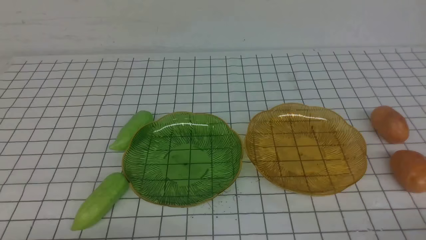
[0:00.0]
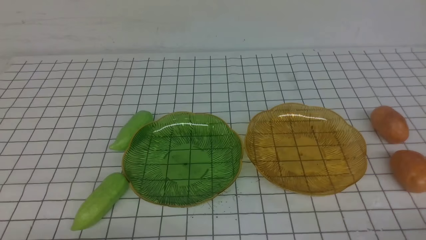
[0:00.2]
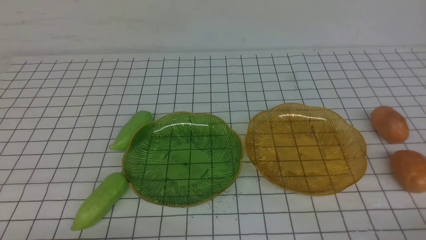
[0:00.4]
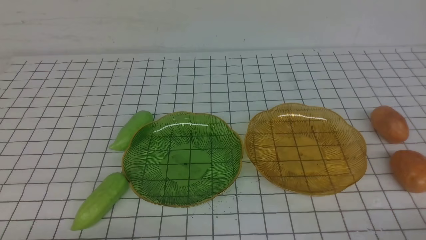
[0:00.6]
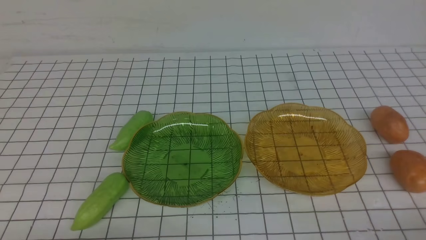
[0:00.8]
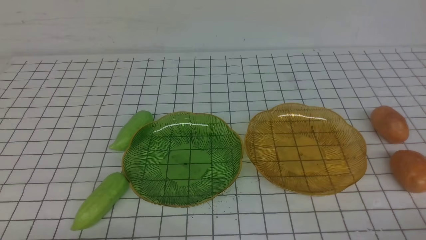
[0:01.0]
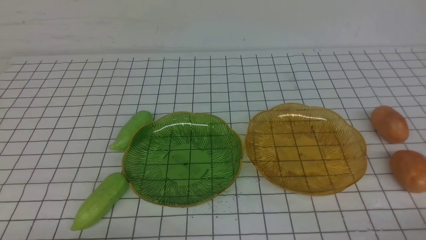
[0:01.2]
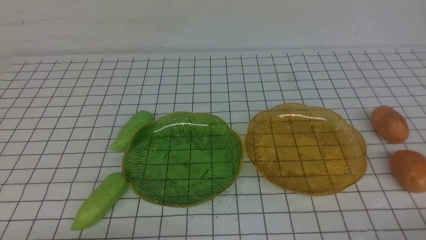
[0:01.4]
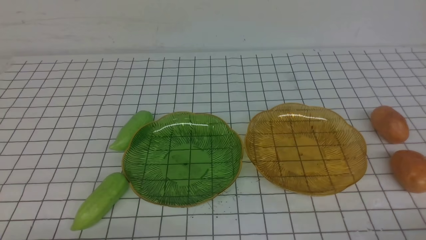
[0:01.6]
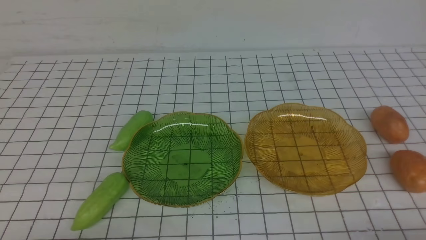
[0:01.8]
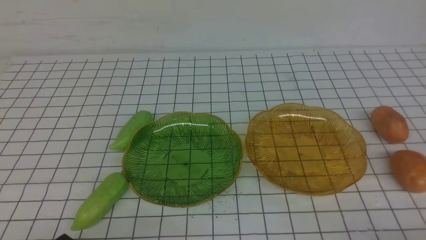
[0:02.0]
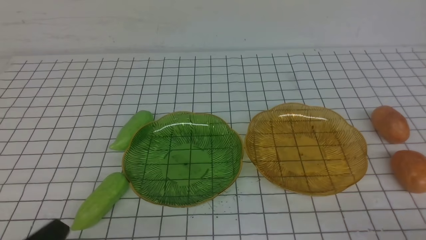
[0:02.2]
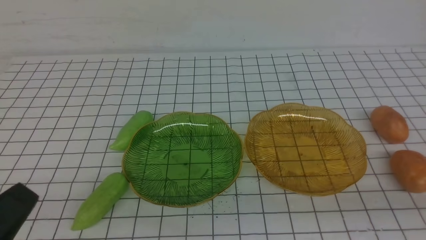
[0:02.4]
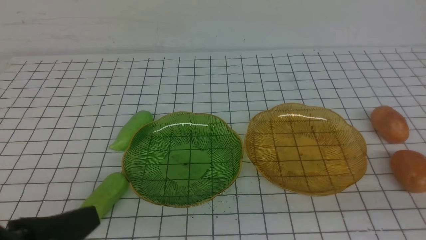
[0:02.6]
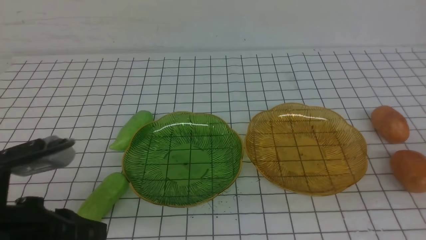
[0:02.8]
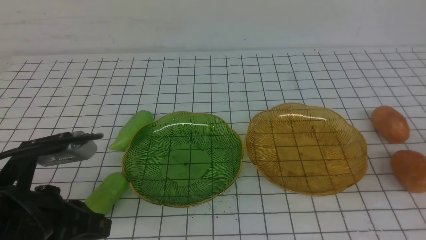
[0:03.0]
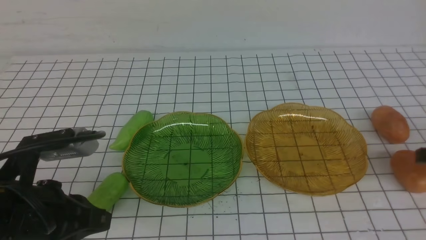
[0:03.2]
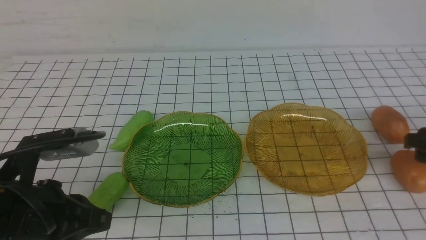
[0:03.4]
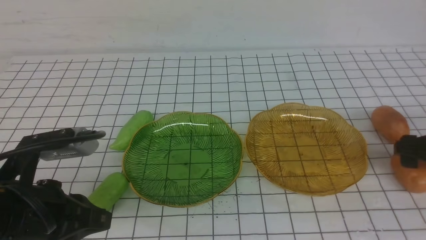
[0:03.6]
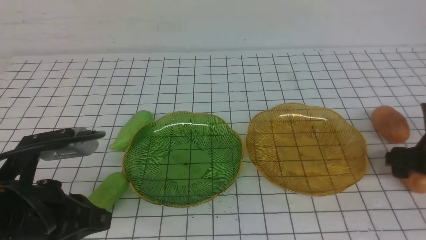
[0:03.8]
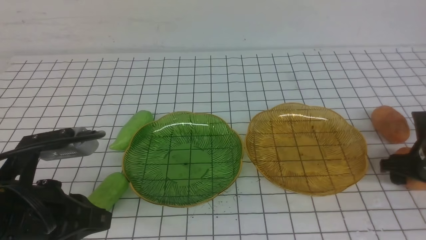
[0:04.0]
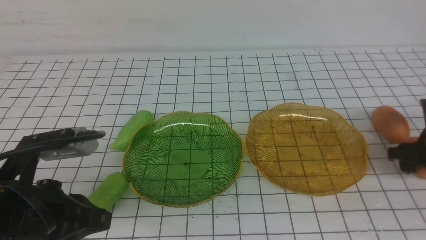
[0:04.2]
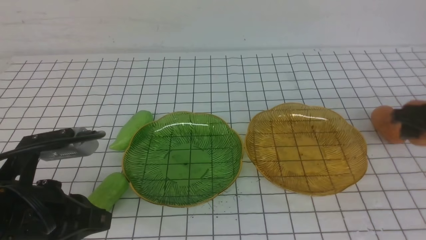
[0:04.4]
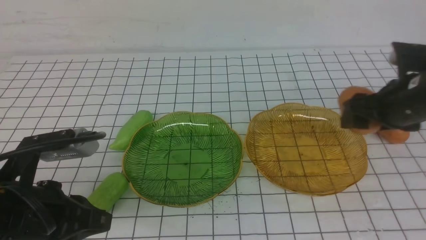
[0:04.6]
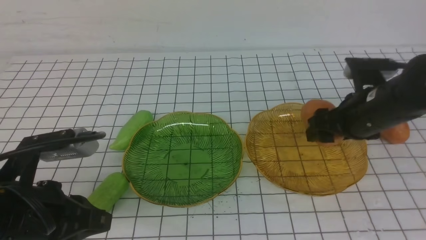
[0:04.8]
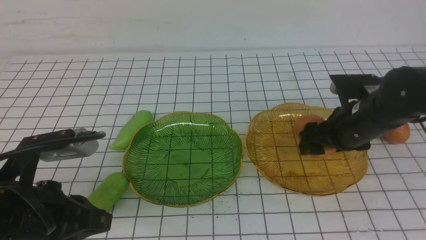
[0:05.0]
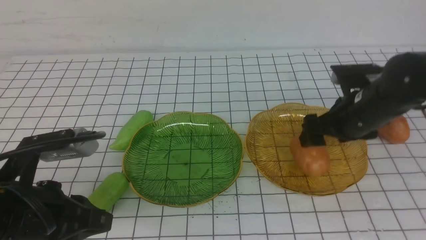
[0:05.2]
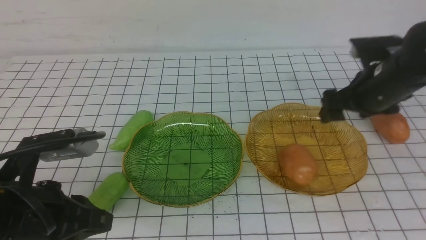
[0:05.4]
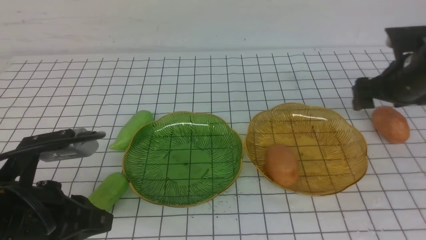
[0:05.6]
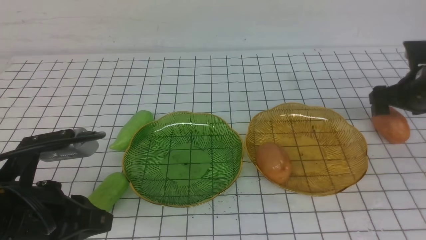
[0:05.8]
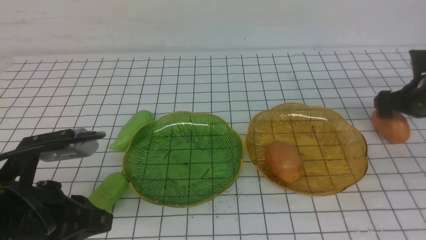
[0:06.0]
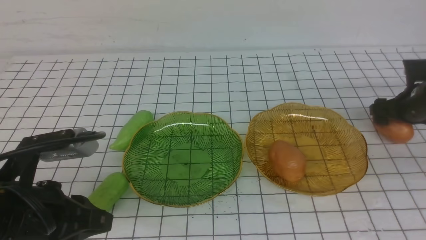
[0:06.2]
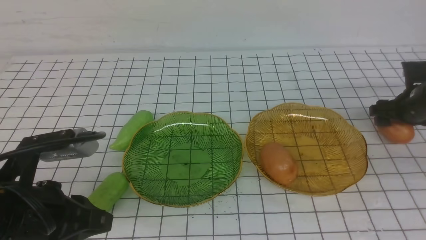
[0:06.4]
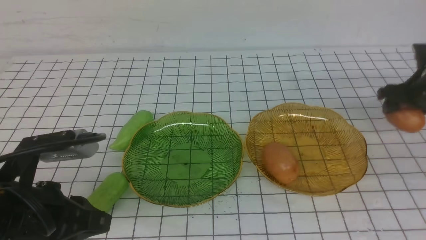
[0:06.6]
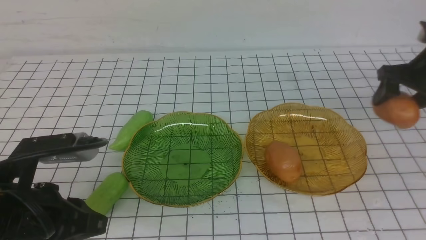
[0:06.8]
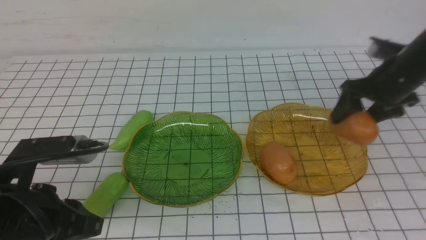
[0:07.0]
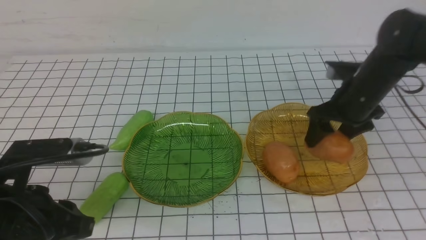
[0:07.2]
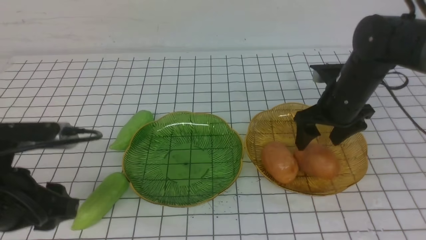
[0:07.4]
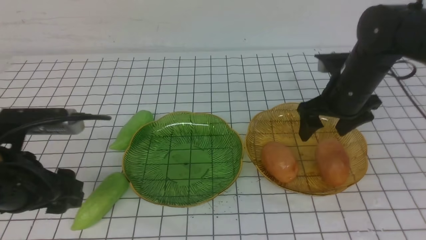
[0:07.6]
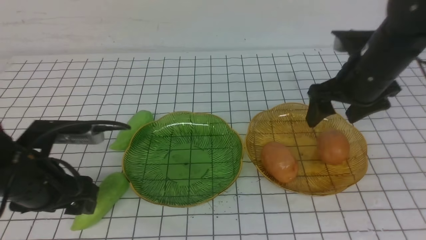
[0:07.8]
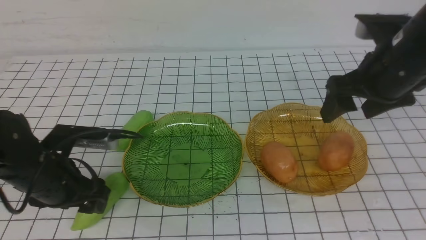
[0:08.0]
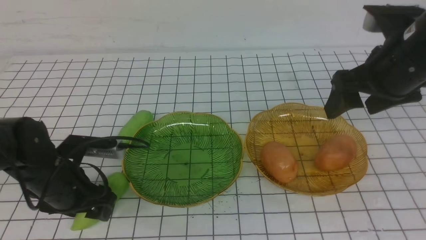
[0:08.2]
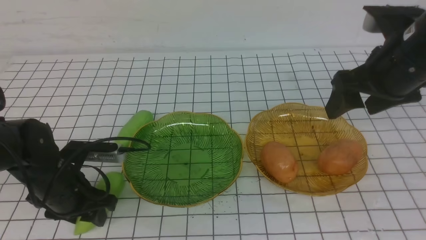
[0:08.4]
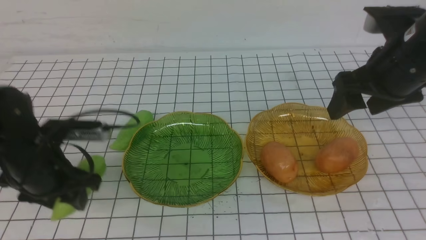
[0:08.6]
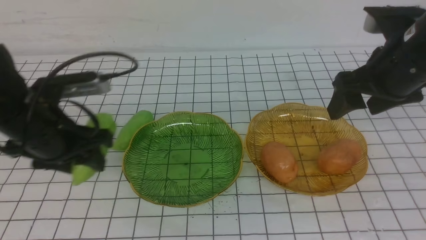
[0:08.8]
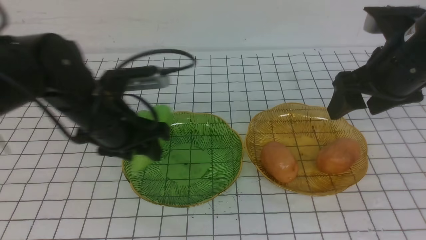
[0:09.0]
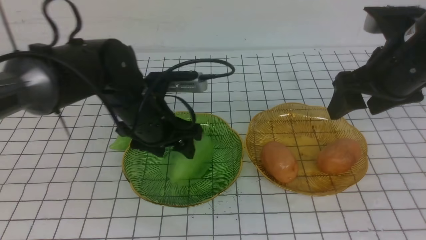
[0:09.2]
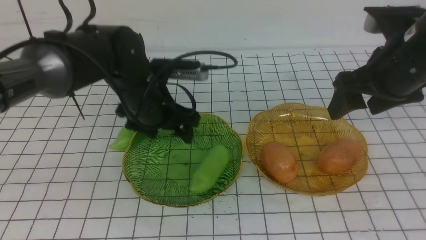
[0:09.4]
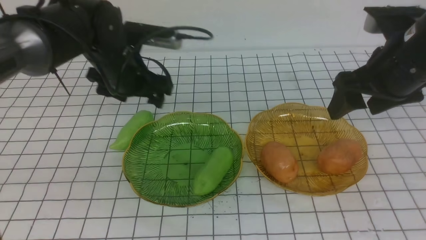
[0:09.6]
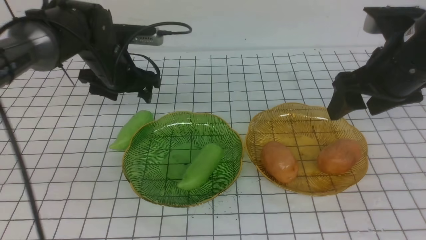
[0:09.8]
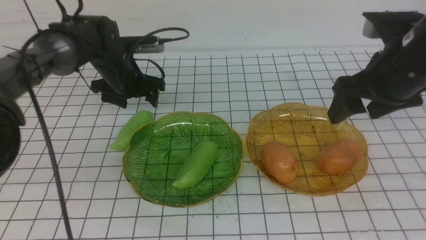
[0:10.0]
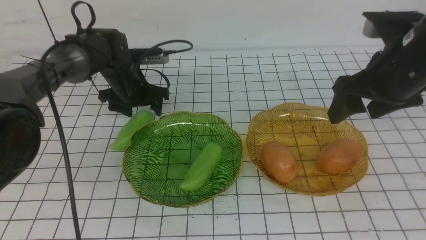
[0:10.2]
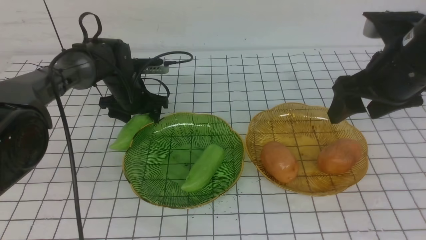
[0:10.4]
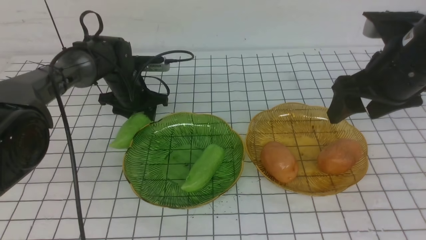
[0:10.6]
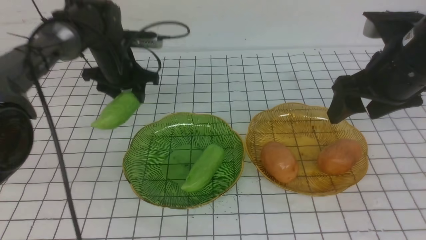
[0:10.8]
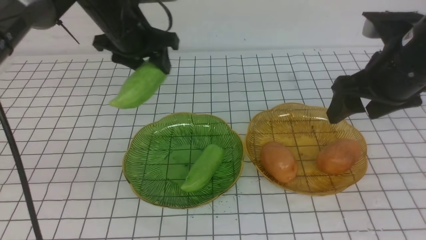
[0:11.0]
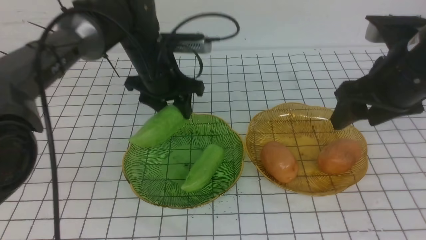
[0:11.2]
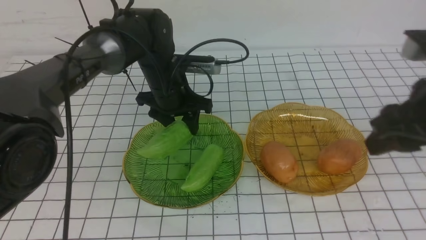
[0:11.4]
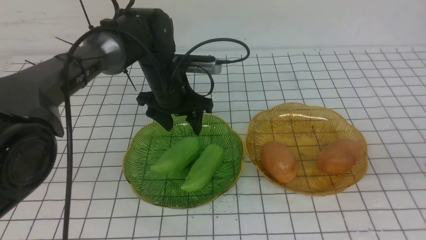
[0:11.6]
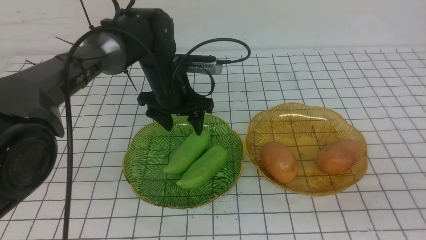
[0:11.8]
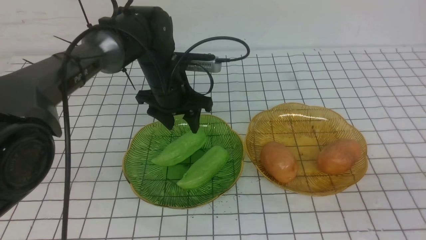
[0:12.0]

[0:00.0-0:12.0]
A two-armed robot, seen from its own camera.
Step, 0:00.0 to 0:07.4: Grab a potato with your right arm and put it on the right plate.
Step, 0:07.6 to 0:11.6: use the left arm to grab a chayote and put it into the left plate.
0:01.6 to 0:03.0: The left gripper goes approximately 15 cm upward and forward; the right gripper heads forward and upward, covering some 15 cm.
0:03.0 to 0:04.4: The right gripper moves forward, roughly 10 cm, and opens its fingers.
0:04.4 to 0:06.0: The right gripper is displaced forward, downward and to the right by roughly 15 cm.
0:06.0 to 0:07.6: The left gripper changes place by some 5 cm, and opens; the right gripper shifts some 15 cm to the left and upward.
0:07.6 to 0:09.0: The right gripper heads upward and backward, covering about 10 cm; the left gripper shifts approximately 15 cm forward and to the right.
0:09.0 to 0:10.4: The left gripper moves forward and downward, about 20 cm.
0:10.4 to 0:12.0: The right gripper heads backward, covering some 25 cm, and closes up. The left gripper moves to the right, upward and backward, approximately 15 cm.

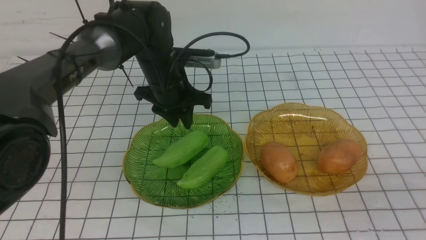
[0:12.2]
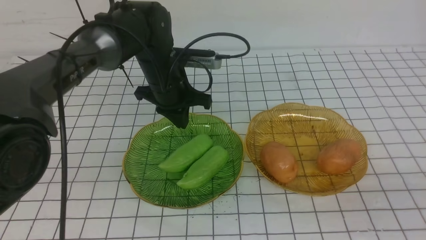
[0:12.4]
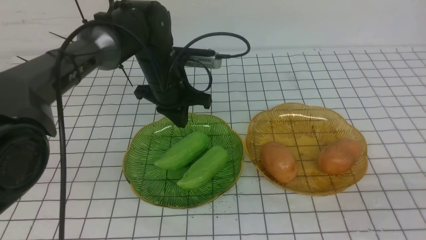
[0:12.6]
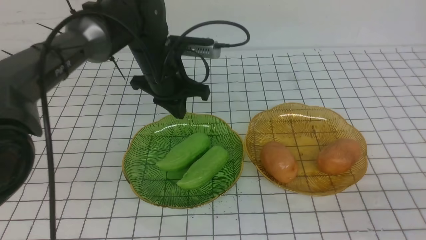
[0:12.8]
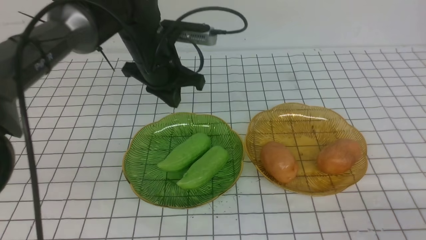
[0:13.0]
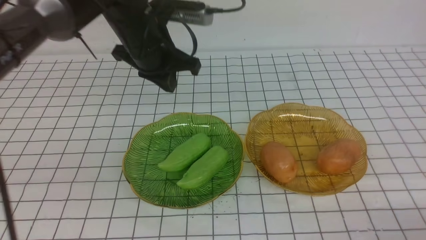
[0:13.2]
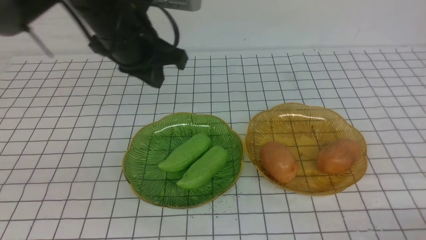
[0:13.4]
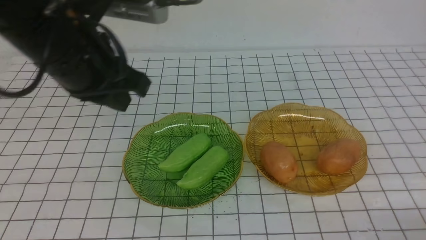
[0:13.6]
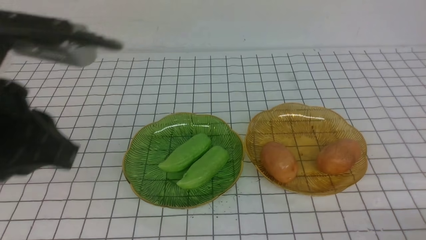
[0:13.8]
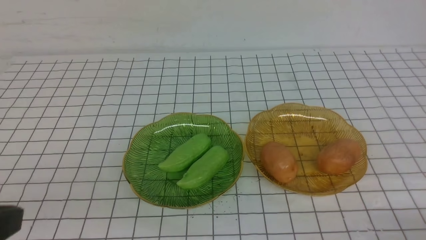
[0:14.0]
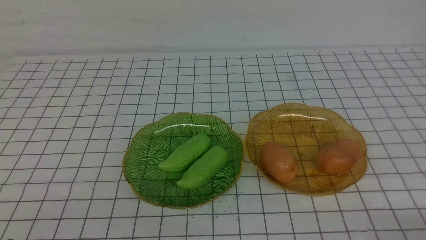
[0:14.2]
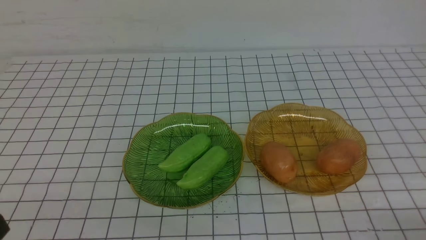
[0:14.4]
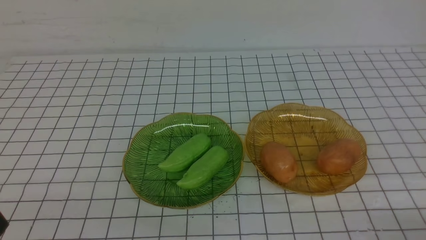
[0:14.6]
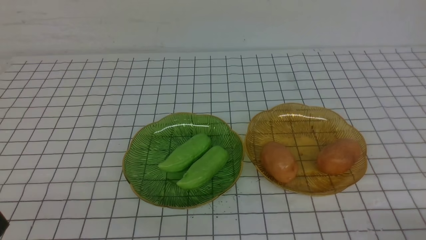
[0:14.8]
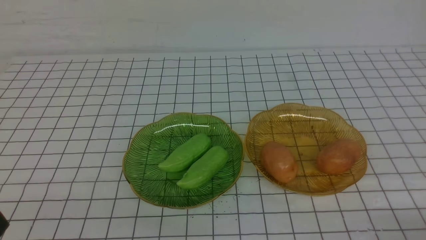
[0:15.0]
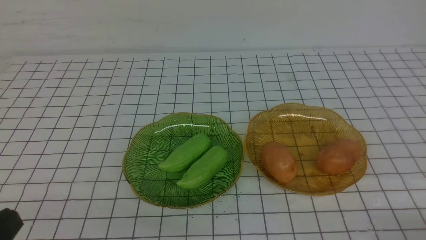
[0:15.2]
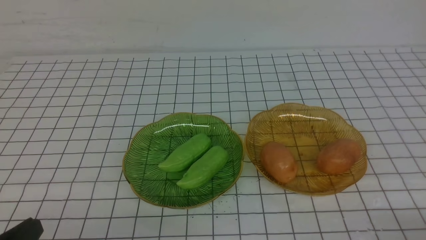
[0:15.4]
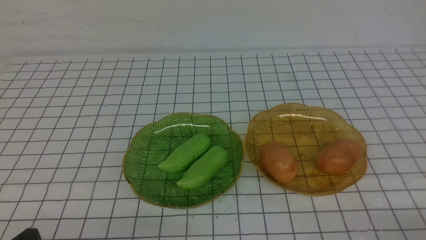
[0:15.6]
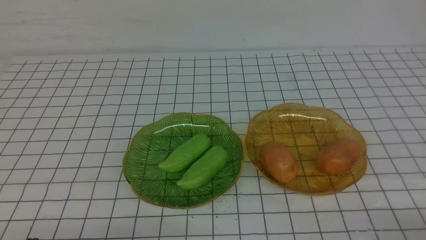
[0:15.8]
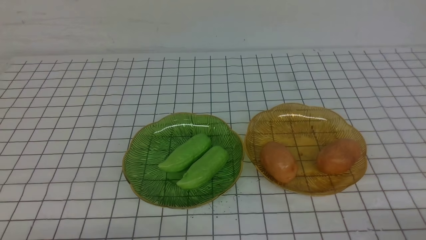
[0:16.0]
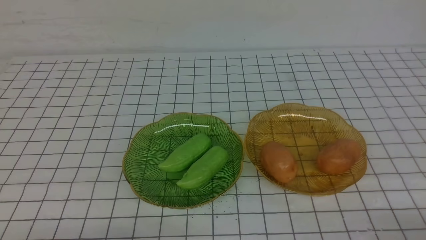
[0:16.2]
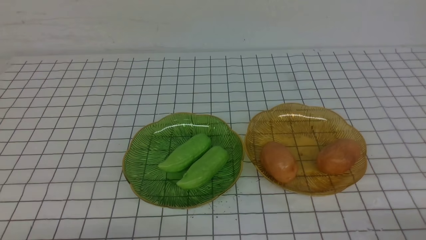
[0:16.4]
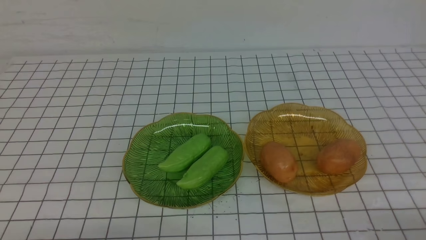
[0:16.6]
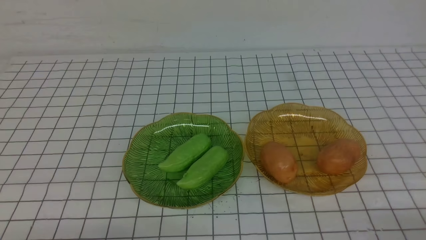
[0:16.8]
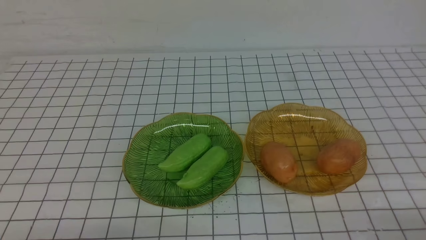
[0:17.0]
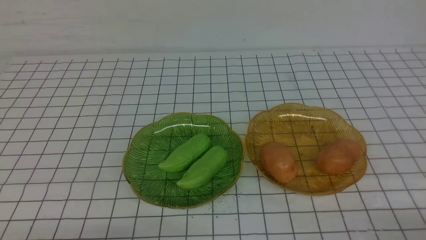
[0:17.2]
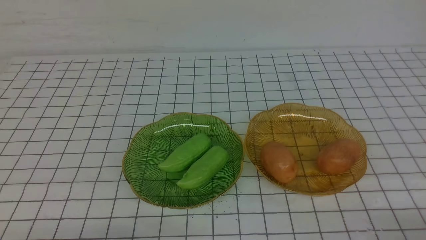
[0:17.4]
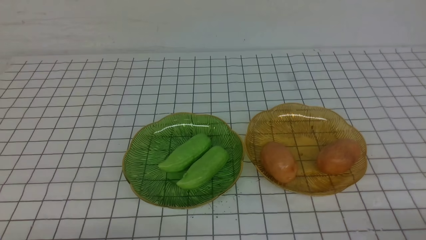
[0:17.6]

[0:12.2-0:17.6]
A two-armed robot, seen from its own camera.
0:12.2 to 0:13.6: The right gripper heads downward, covering some 10 cm, while the left gripper travels backward, upward and to the left by some 25 cm.
0:13.6 to 0:15.0: The left gripper heads backward and downward, covering about 25 cm.
0:16.2 to 0:17.6: The two grippers keep their place.
